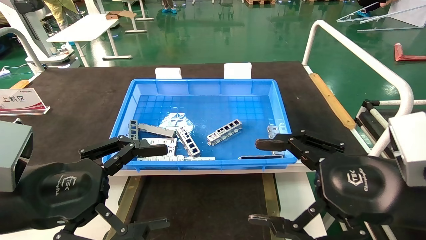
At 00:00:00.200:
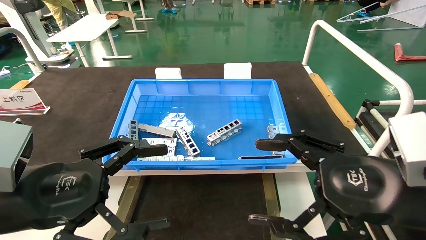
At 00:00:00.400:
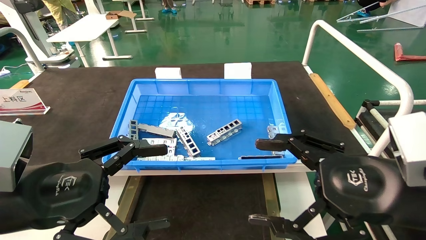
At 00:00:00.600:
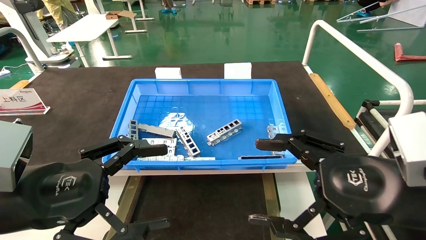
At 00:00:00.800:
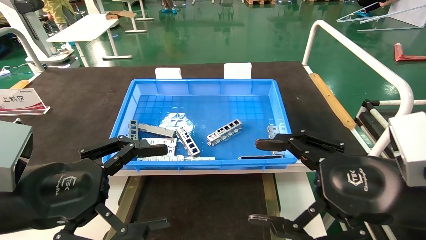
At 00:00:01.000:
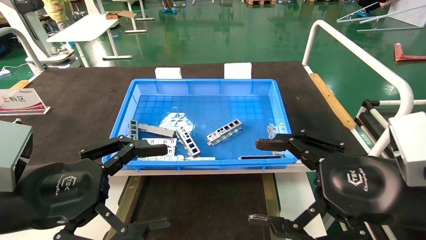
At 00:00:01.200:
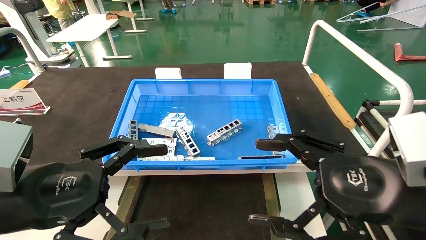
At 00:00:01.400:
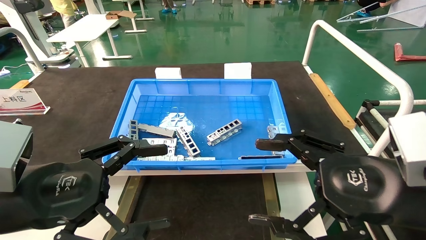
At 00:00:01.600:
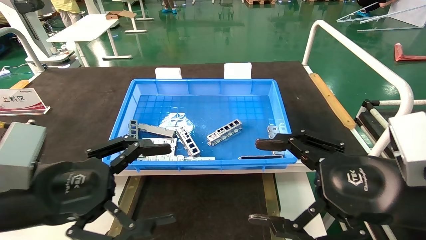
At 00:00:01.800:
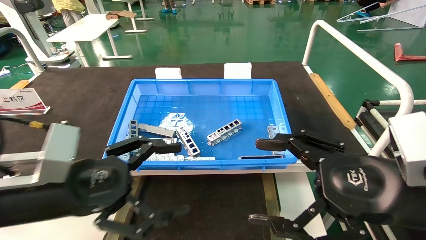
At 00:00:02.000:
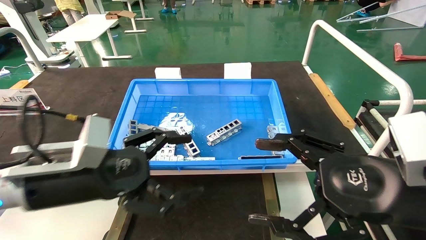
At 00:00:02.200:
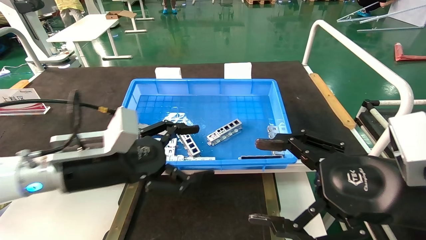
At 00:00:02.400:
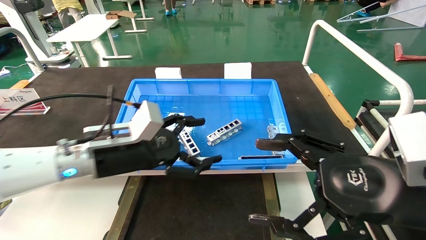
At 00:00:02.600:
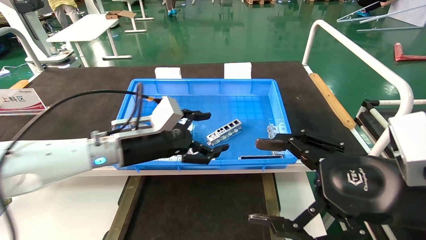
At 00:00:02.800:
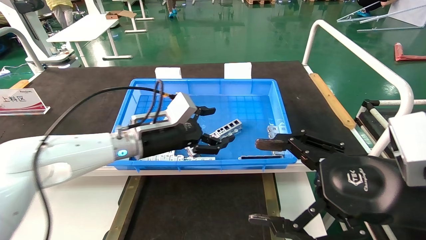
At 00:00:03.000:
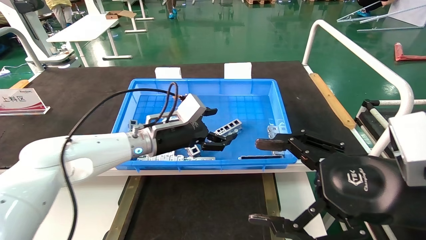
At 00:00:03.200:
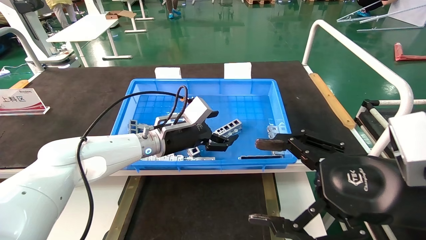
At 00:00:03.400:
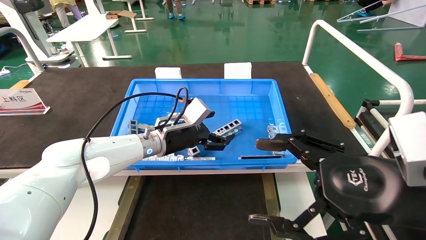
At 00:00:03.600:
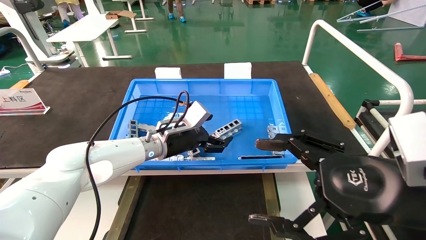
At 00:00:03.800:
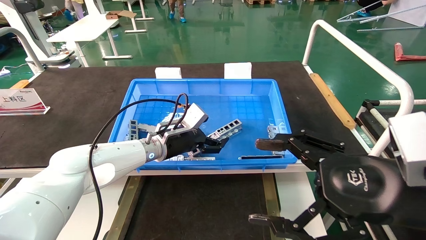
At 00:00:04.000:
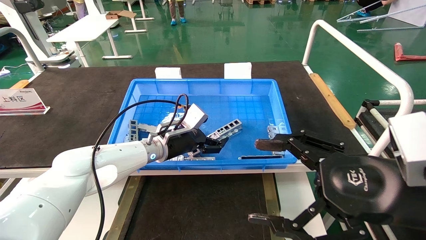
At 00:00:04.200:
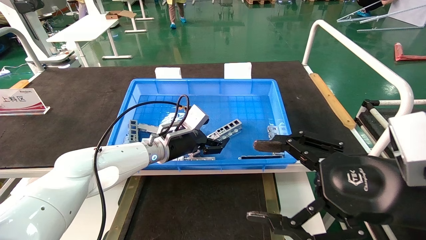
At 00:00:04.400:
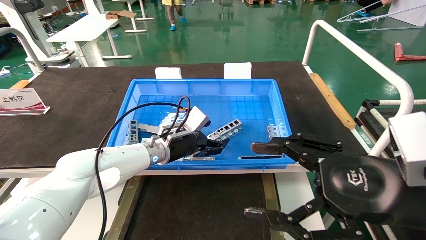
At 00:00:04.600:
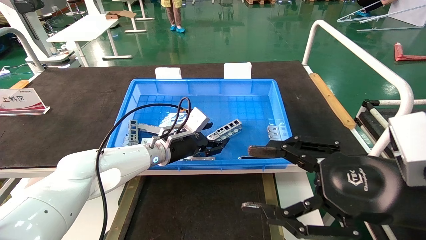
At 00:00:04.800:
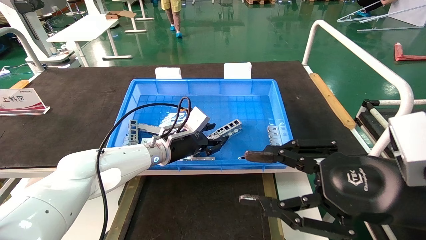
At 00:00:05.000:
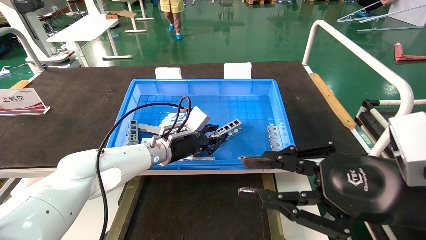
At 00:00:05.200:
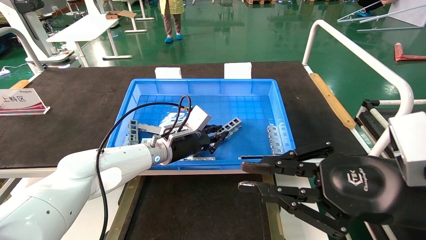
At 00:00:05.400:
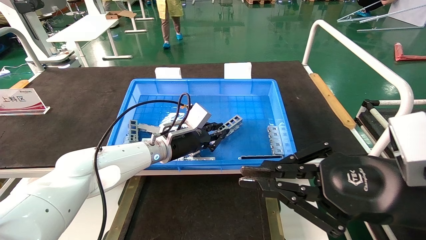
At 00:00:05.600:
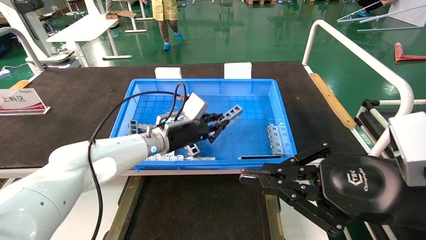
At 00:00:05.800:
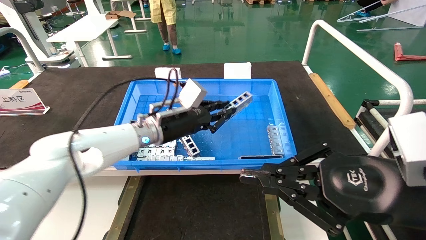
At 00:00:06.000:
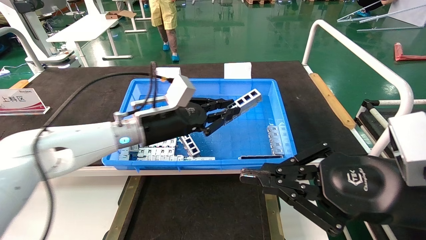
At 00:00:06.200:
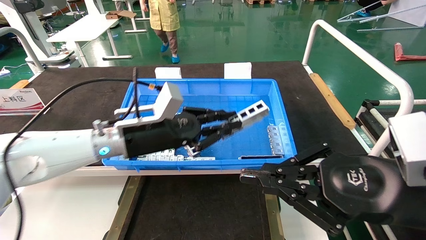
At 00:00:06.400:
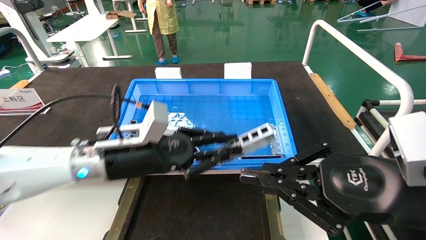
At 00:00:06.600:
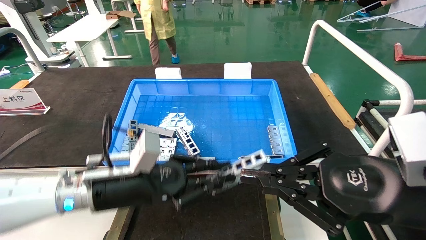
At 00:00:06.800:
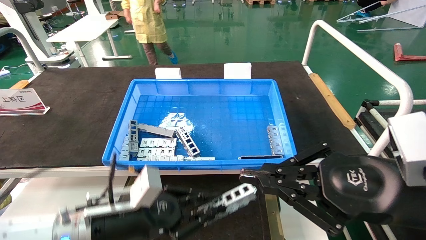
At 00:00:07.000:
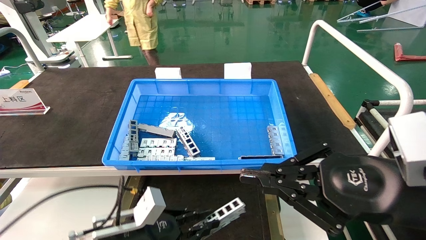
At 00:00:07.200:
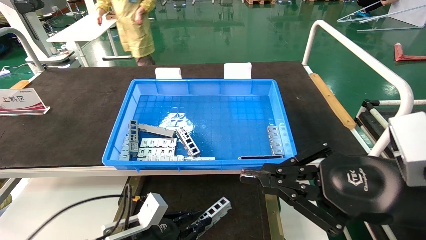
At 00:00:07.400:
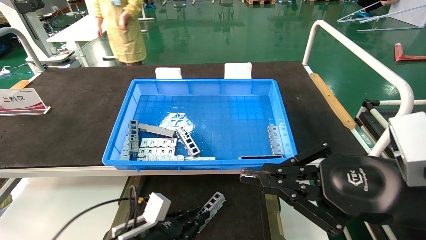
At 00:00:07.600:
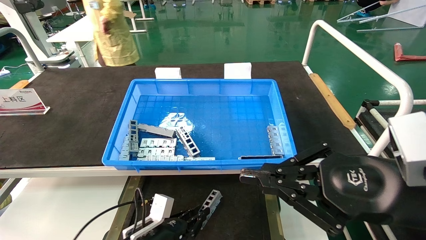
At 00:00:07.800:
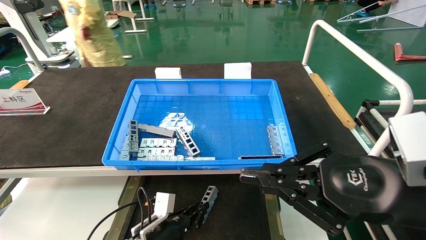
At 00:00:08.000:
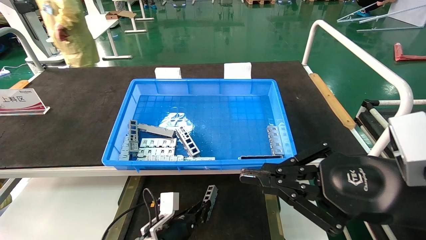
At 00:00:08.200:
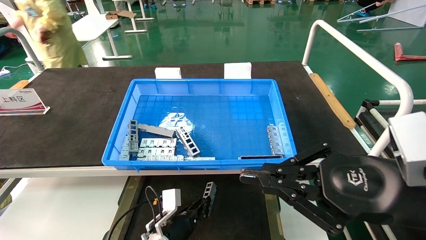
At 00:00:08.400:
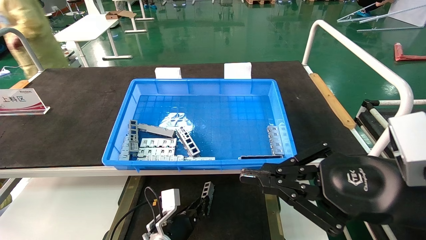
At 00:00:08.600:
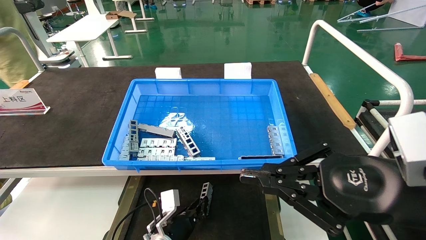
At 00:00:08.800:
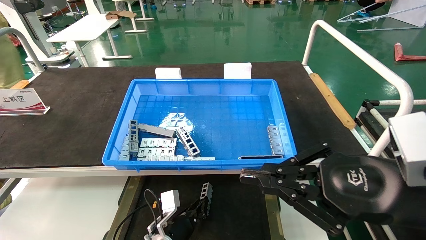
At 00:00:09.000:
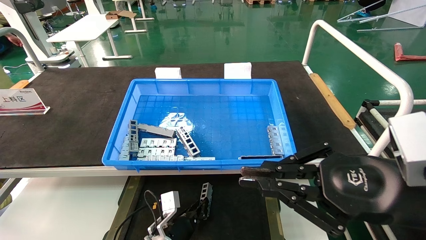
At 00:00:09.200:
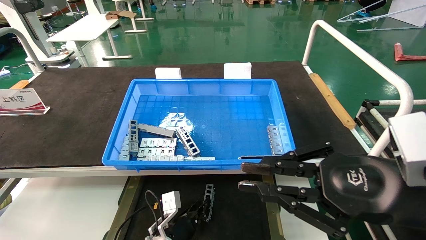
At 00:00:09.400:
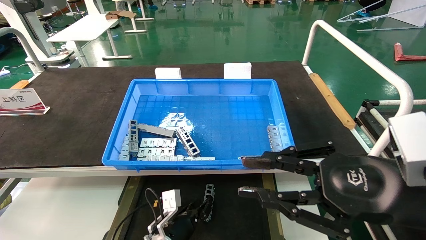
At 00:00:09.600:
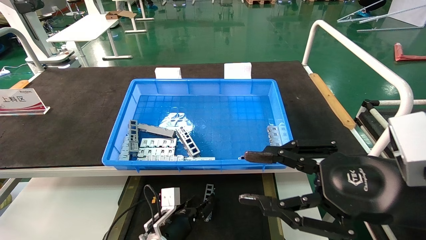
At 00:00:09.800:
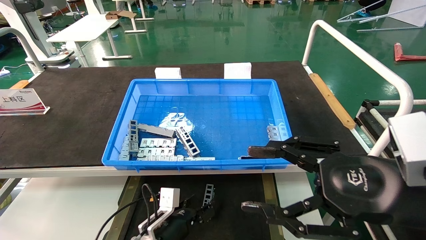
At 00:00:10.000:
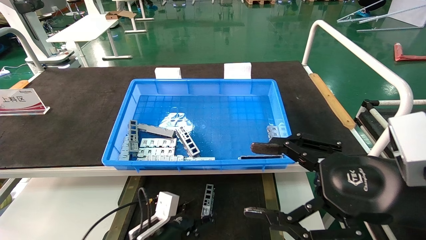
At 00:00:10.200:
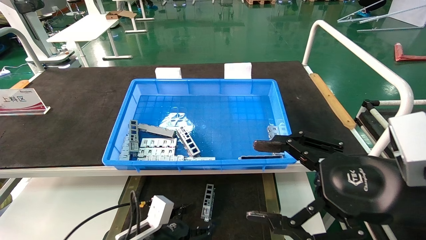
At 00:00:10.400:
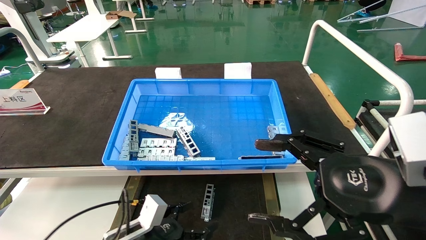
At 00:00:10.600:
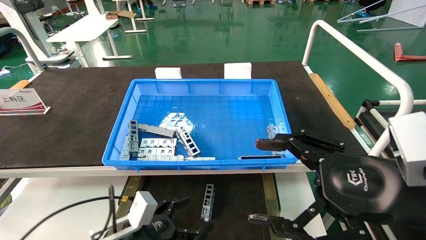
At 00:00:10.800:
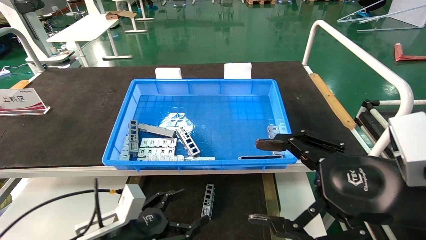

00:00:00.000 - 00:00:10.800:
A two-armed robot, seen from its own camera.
Task of the whole recording: Grasp the part with one hand and place it on the black container.
Step, 00:00:01.600 - 00:00:05.800: Pick up the front USB bracket from the feeding area.
Step, 00:00:06.000 - 00:00:09.600: Place the front USB bracket into the box.
00:00:00.000 - 00:00:01.600: There are only small adjustments of the grippers.
00:00:01.600 - 00:00:03.000: The left gripper moves forward and to the right, about 25 cm.
00:00:03.000 - 00:00:04.600: The left gripper moves roughly 5 cm.
00:00:04.600 - 00:00:06.200: The right gripper closes up, while the left gripper shifts roughly 10 cm backward and upward, and closes its fingers.
00:00:06.200 - 00:00:07.800: The left gripper travels downward by about 25 cm.
00:00:07.800 - 00:00:09.200: The left gripper moves about 5 cm.
00:00:09.200 - 00:00:10.800: The right gripper opens its fingers, while the left gripper travels upward, backward and to the left by some 20 cm, and opens up.
